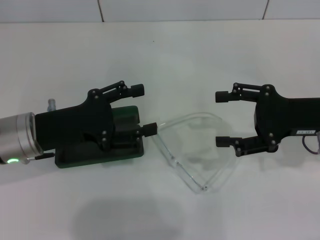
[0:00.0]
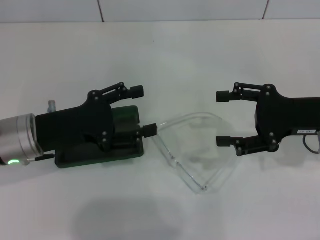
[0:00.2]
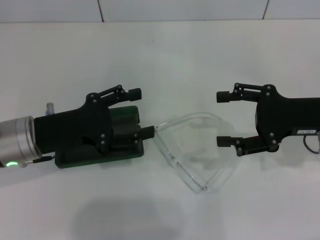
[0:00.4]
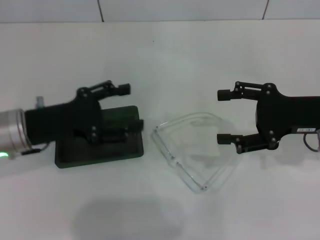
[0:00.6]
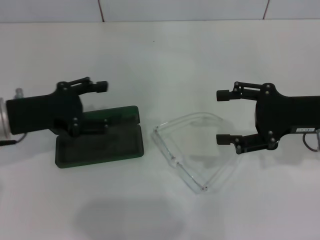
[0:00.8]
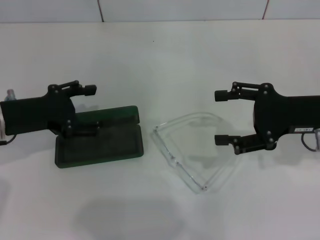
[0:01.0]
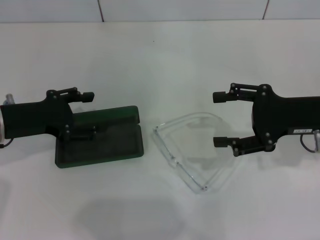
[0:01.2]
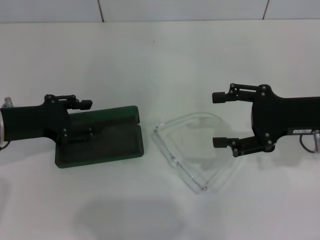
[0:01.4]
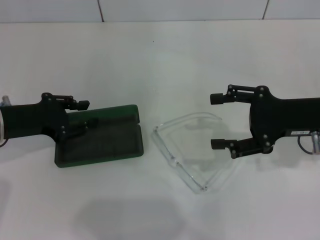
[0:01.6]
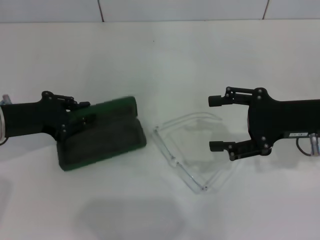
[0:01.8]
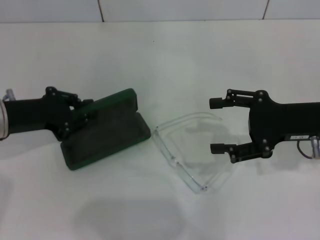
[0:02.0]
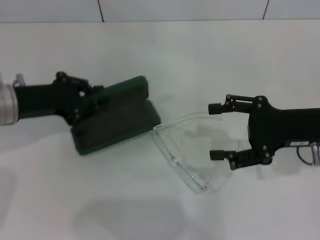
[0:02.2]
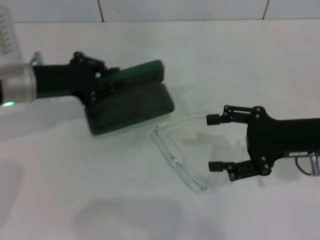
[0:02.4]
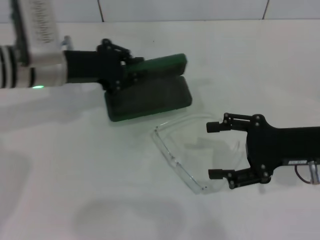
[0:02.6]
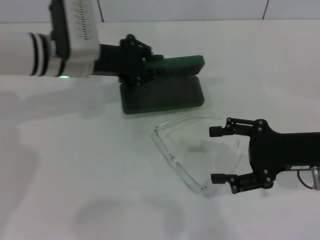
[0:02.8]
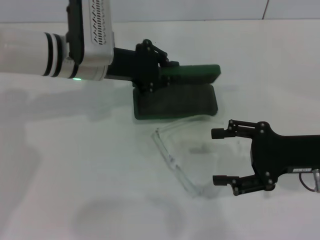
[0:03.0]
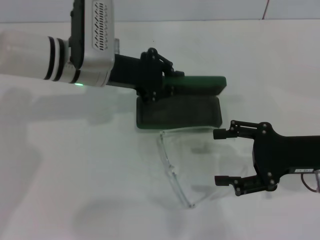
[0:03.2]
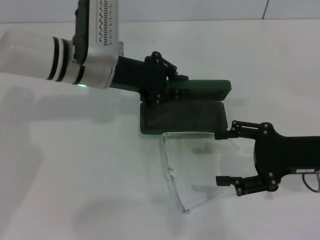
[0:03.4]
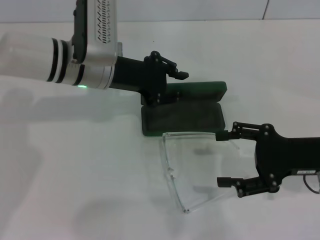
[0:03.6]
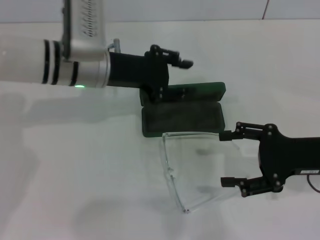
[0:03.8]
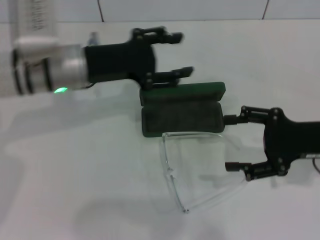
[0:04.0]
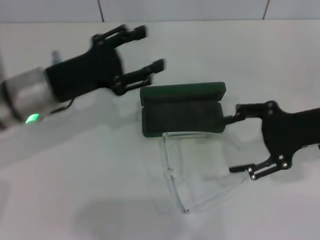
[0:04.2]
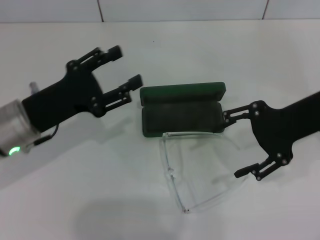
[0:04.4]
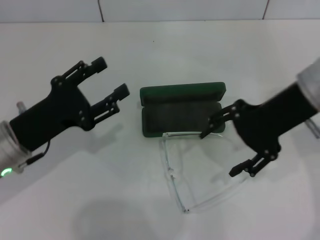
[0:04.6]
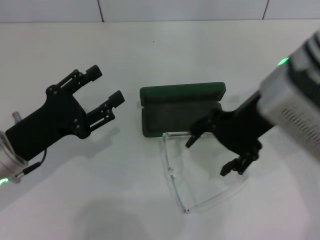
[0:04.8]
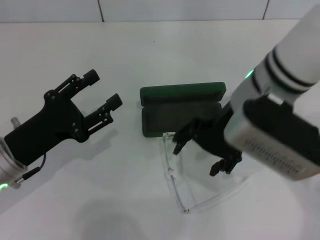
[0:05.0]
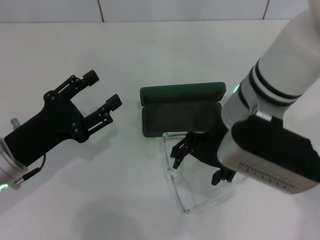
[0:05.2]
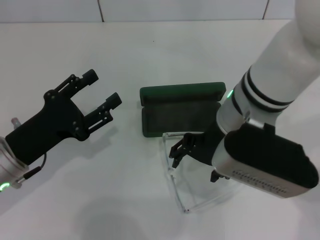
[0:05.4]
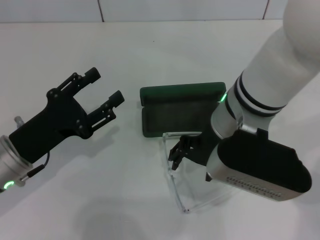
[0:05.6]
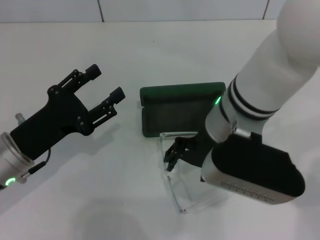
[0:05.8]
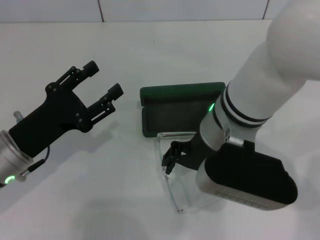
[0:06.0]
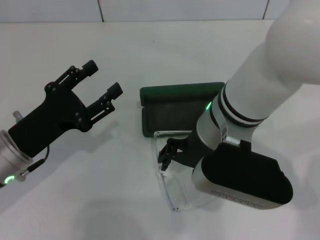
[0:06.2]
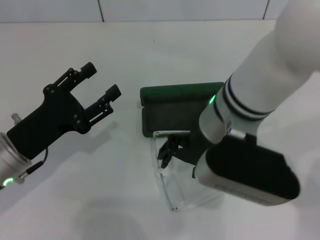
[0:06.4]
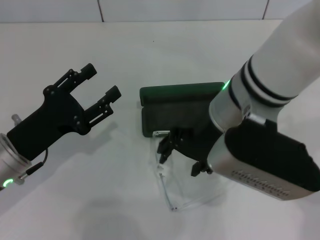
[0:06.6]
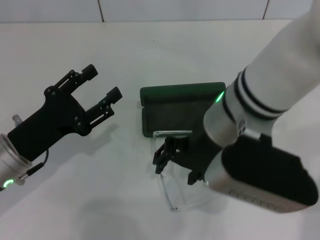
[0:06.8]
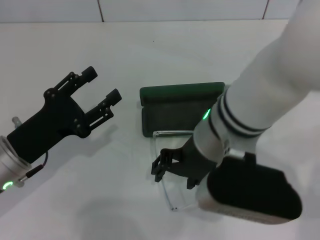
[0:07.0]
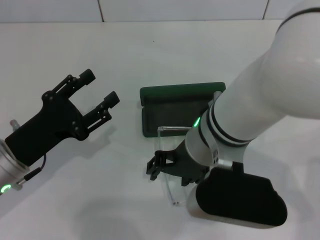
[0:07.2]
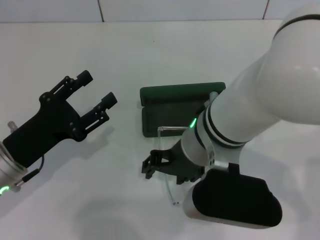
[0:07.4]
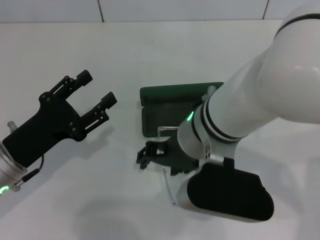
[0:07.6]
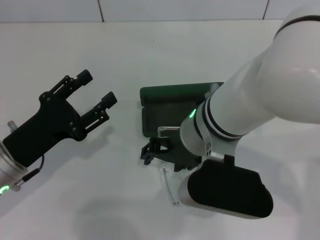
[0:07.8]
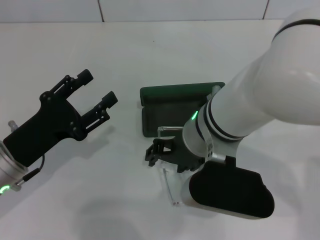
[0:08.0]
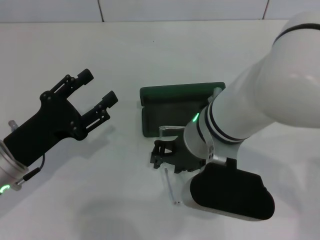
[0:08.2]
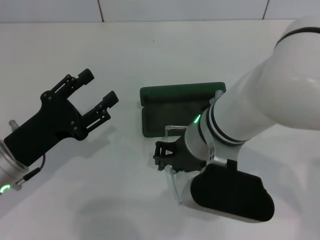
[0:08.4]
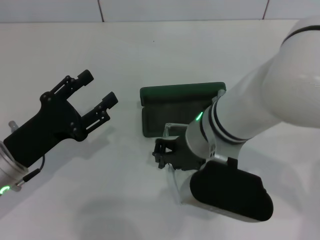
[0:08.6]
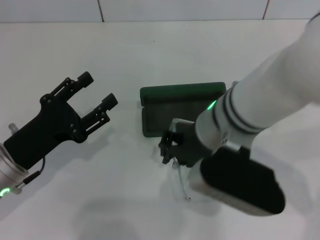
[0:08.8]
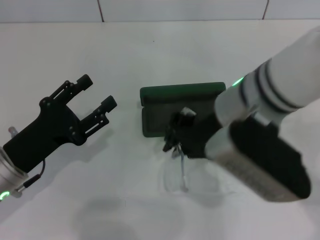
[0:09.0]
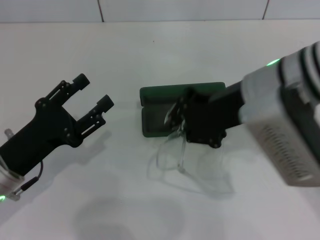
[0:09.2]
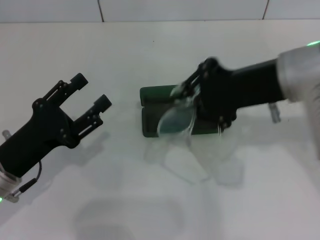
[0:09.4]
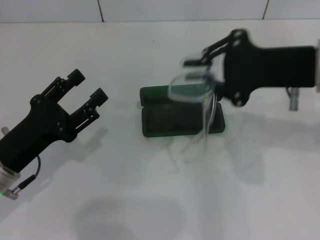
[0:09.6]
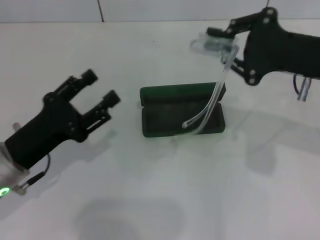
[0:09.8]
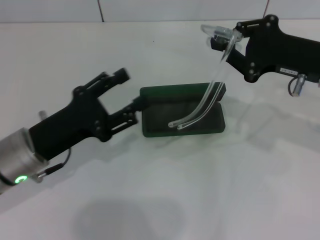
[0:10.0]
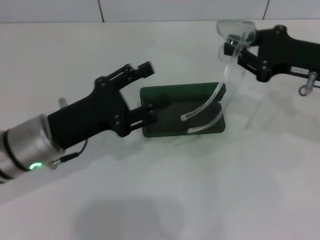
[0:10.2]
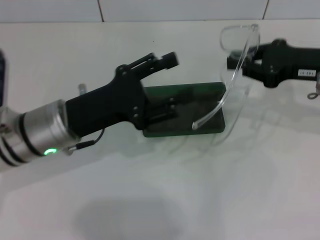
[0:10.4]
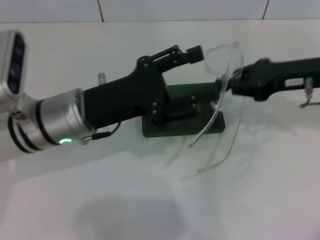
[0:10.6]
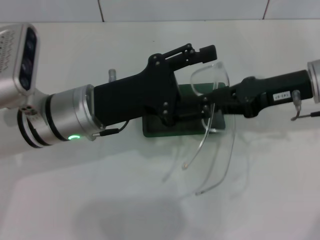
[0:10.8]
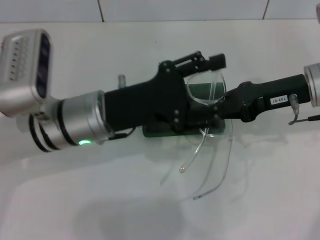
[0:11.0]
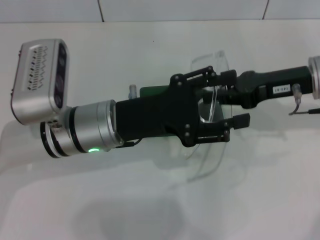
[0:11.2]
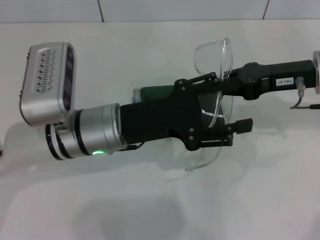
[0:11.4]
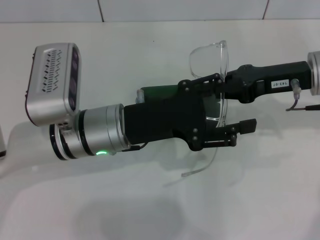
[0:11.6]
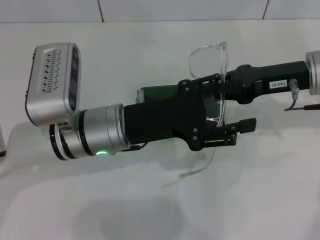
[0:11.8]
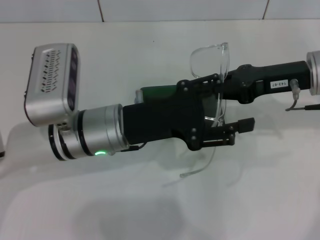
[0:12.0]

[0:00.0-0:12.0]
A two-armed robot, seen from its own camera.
Step, 0:00.0 to 0:01.4: Grab the glasses case with your left hand.
Step, 0:01.8 to 0:03.6: Place the glasses case in the center of the table with your left hand.
Step, 0:03.8 to 0:08.2: Grab the eyeglass frame with your right hand.
0:00.0 to 0:01.6: The left gripper travels to the left by about 5 cm, and closes its fingers.
0:01.6 to 0:03.0: The left gripper is displaced to the right and forward by roughly 15 cm, and closes up.
0:03.0 to 0:04.4: The left gripper moves backward and to the left, roughly 15 cm, and opens up. Meanwhile the right gripper heads upward, covering about 10 cm.
0:04.4 to 0:06.0: The right gripper heads to the left, covering some 15 cm.
0:07.6 to 0:09.0: The right gripper is displaced to the right by some 5 cm, and closes up.
0:09.0 to 0:10.4: The right gripper heads to the right, covering roughly 20 cm. The left gripper goes approximately 10 cm to the right and forward.
0:10.4 to 0:12.0: The left gripper is displaced to the right by some 5 cm.

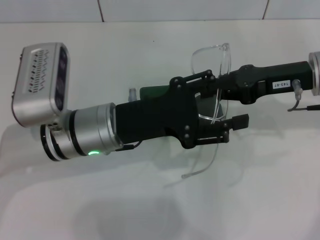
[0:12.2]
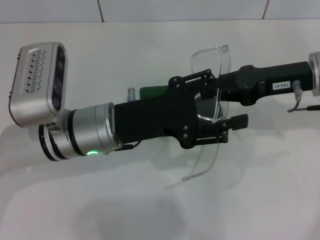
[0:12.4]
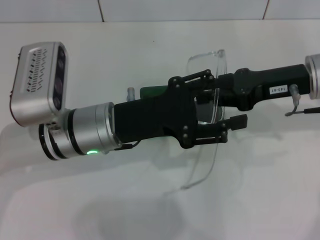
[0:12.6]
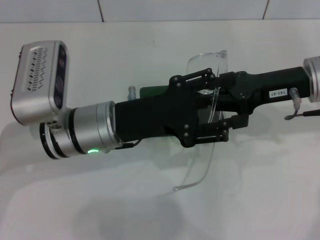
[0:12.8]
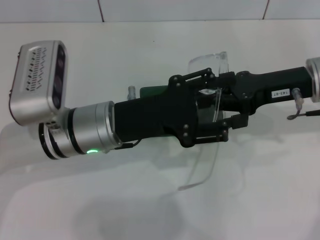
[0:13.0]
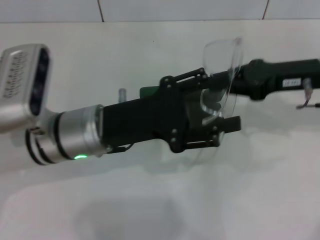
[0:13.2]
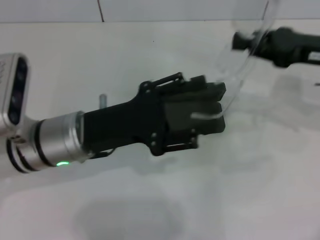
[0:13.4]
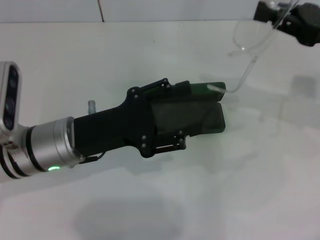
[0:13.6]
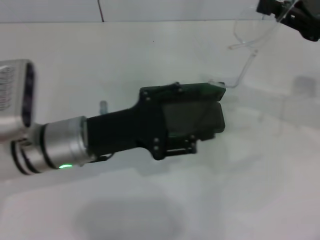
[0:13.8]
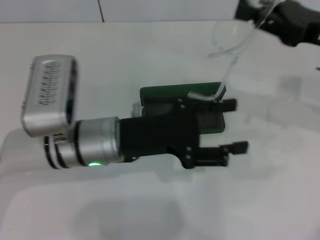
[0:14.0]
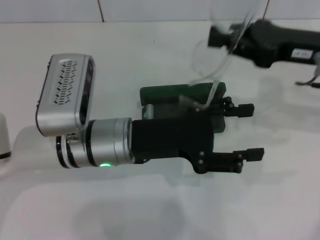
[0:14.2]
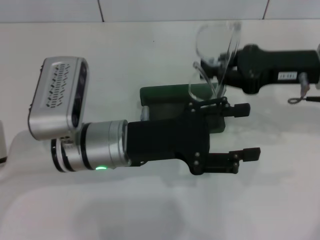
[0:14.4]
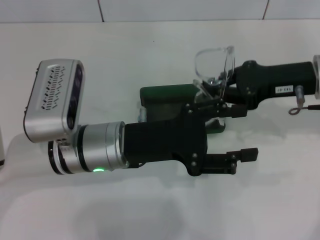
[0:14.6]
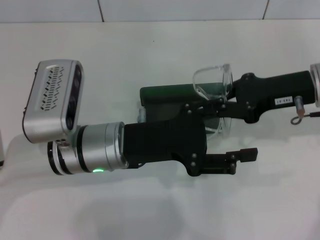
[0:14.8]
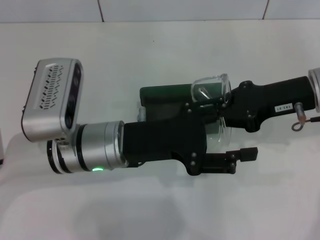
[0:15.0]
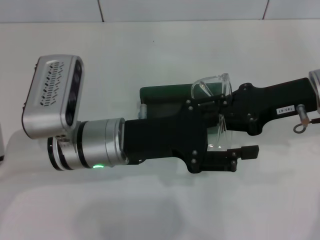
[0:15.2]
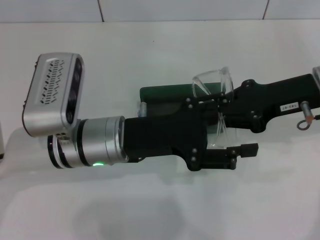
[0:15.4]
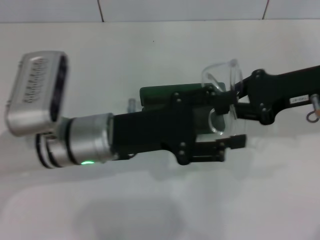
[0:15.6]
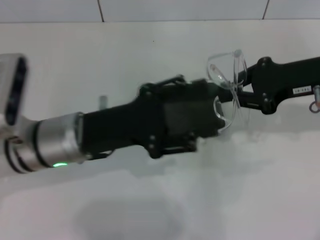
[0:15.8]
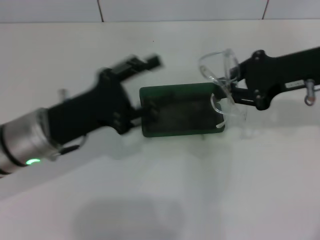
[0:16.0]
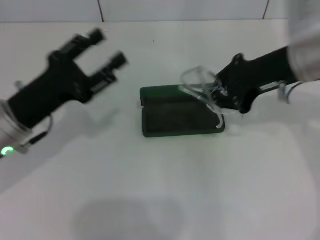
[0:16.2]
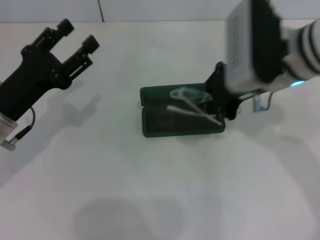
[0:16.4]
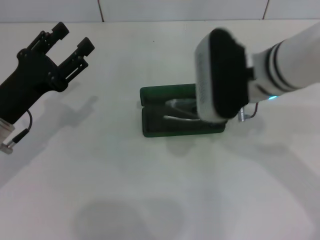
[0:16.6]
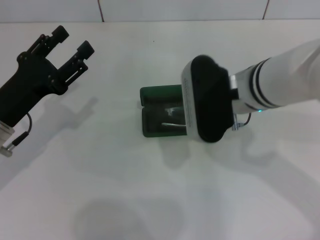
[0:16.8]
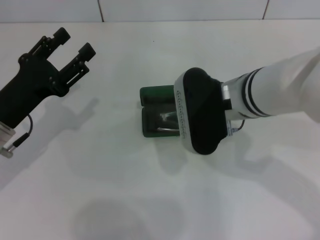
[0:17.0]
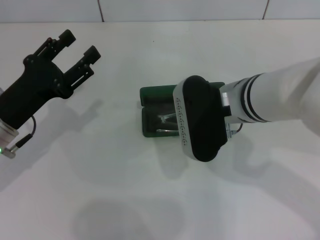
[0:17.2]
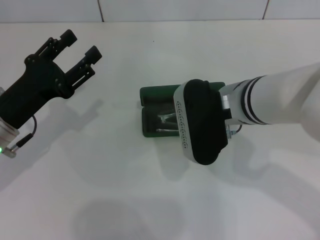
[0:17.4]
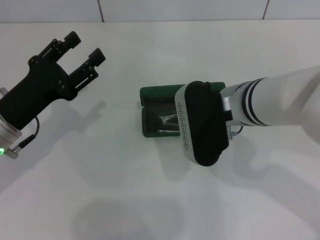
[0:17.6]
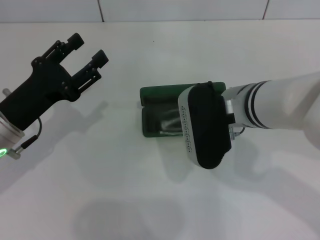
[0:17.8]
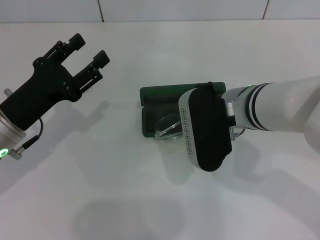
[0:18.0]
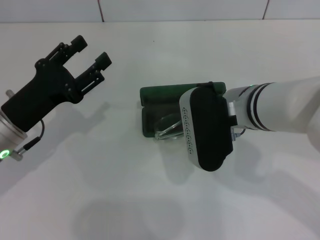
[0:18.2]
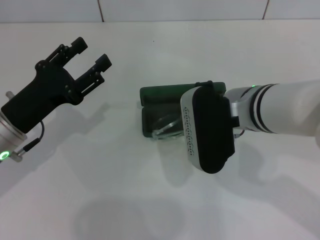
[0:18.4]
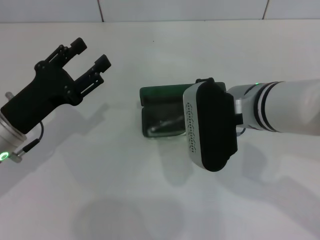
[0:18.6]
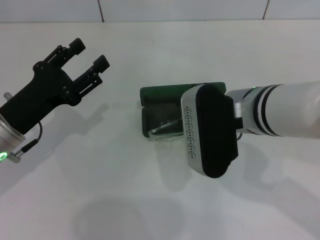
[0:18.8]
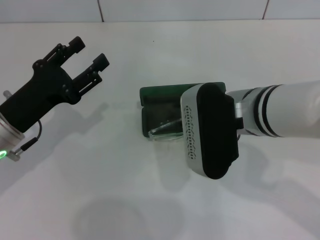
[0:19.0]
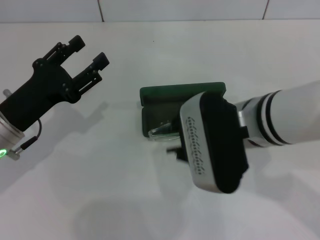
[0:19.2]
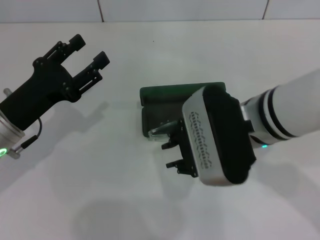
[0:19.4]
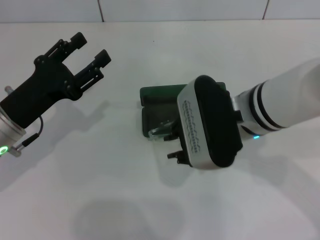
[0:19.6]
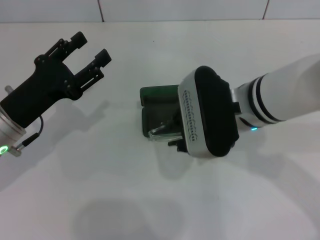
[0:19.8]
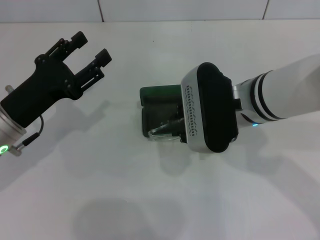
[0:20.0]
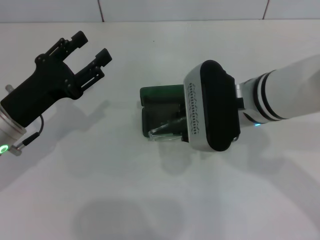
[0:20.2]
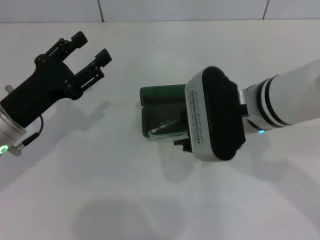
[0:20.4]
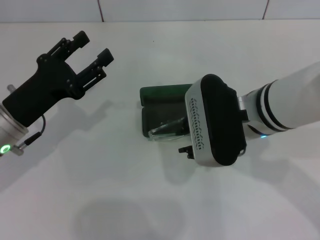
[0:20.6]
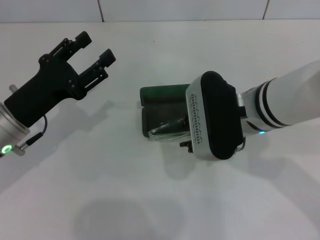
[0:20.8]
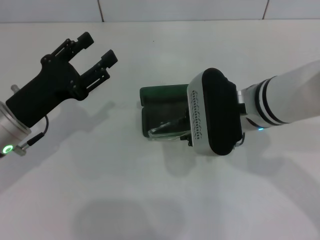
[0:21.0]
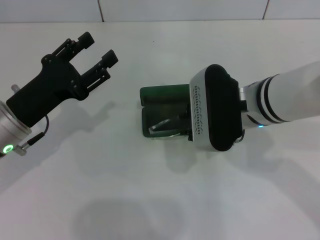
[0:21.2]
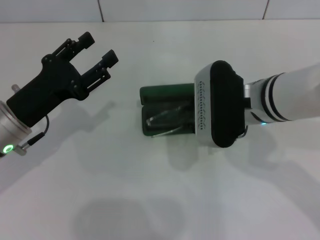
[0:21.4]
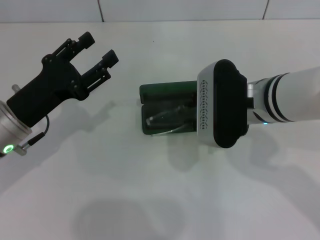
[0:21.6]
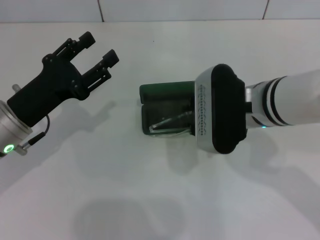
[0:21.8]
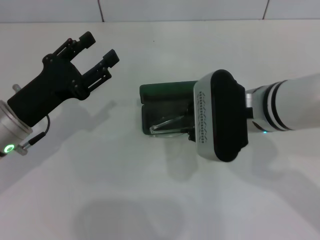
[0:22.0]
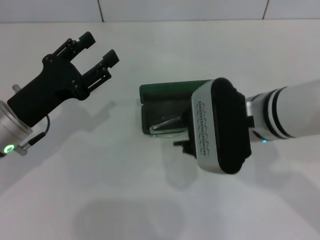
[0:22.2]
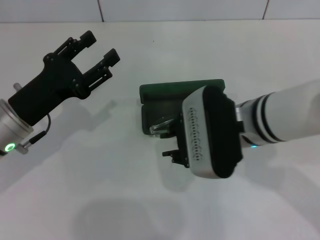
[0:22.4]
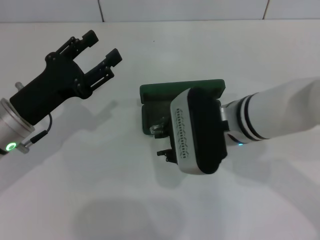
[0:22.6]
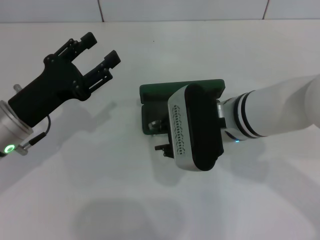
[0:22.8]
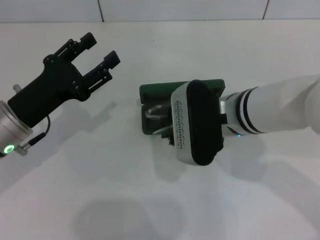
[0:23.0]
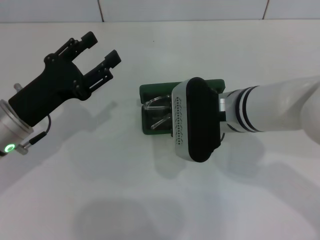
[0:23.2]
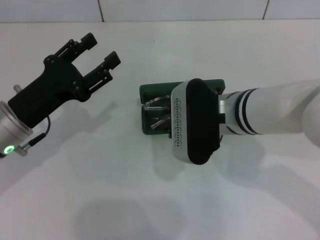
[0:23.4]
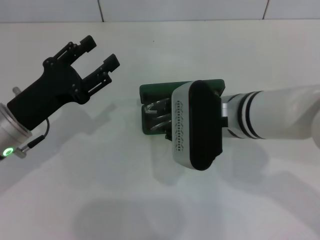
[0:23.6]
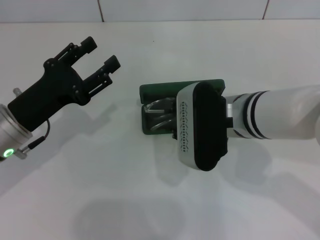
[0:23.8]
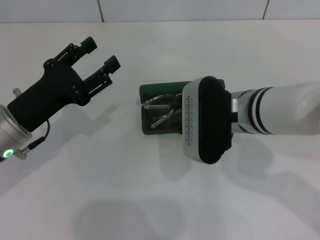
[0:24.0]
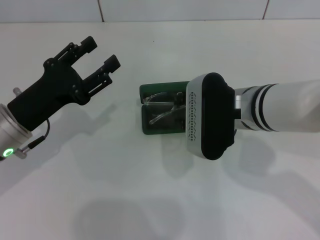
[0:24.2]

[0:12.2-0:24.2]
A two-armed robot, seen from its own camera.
Step, 0:12.2 to 0:15.2: Fold the frame with your left hand.
0:12.2 to 0:13.8: The right gripper is displaced to the right by about 5 cm.
0:13.8 to 0:15.2: The right gripper goes approximately 5 cm to the left.
0:15.2 to 0:16.6: The grippers both shift to the left by roughly 15 cm.
0:16.6 to 0:18.2: The right gripper shifts by approximately 5 cm.
0:19.8 to 0:24.2: The grippers stay close to where they were, moving slightly.
